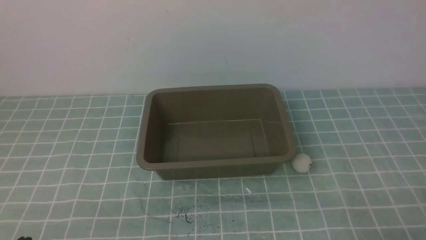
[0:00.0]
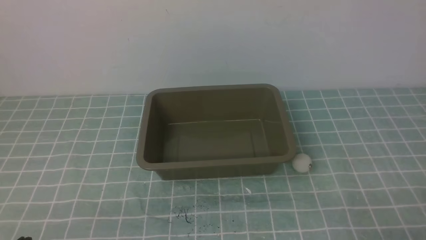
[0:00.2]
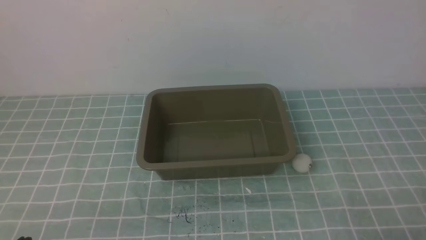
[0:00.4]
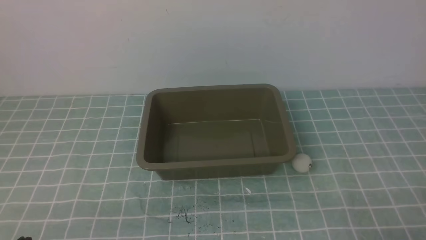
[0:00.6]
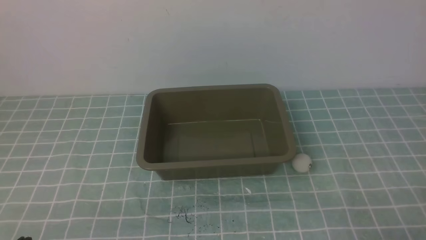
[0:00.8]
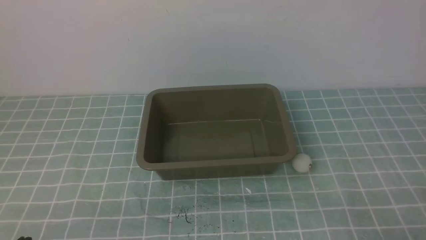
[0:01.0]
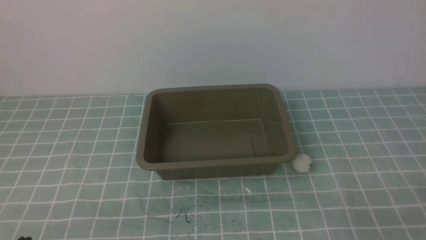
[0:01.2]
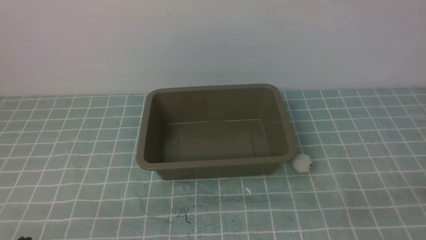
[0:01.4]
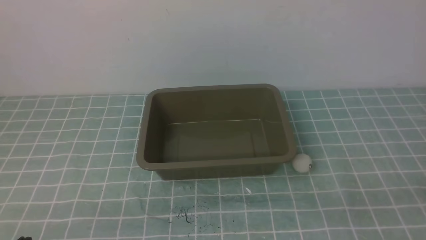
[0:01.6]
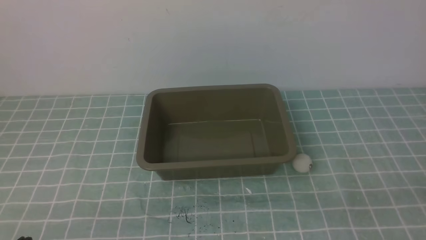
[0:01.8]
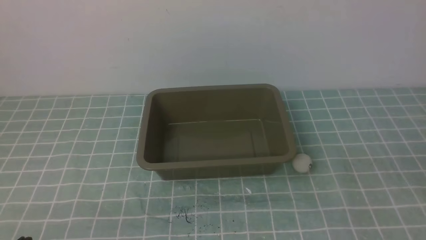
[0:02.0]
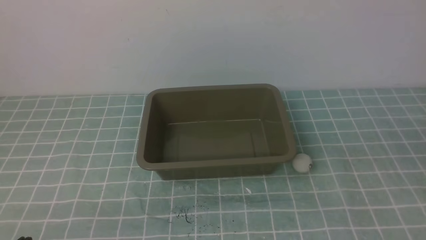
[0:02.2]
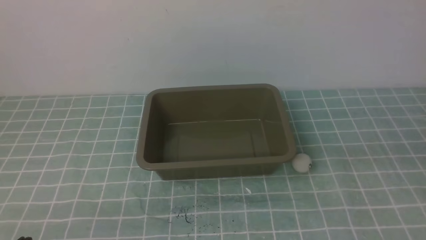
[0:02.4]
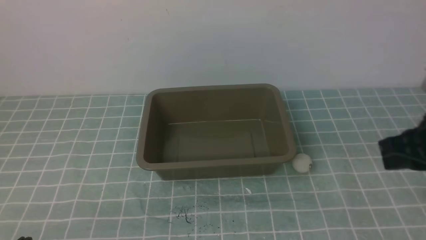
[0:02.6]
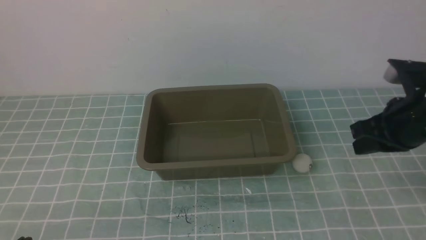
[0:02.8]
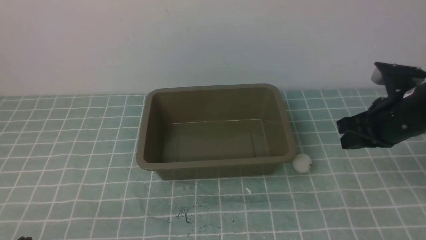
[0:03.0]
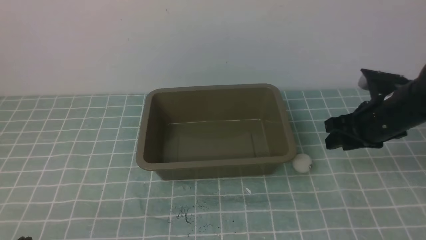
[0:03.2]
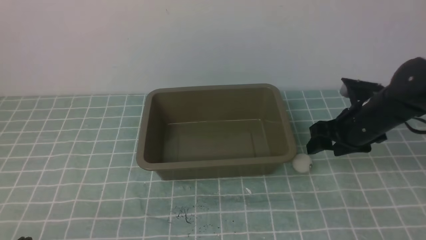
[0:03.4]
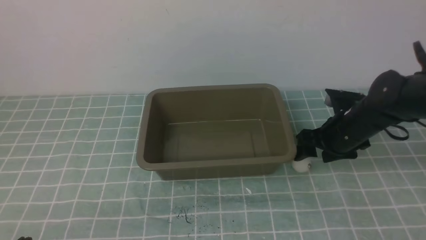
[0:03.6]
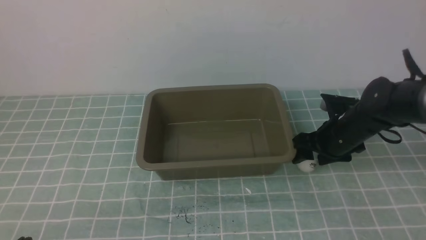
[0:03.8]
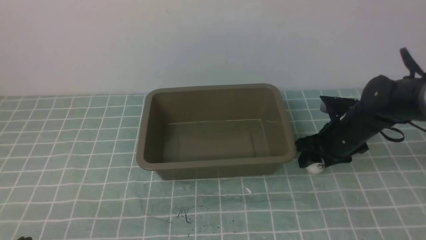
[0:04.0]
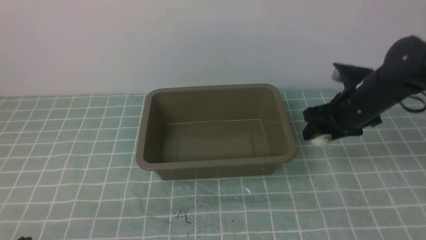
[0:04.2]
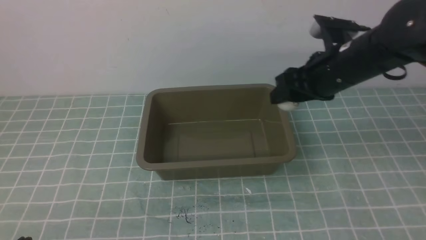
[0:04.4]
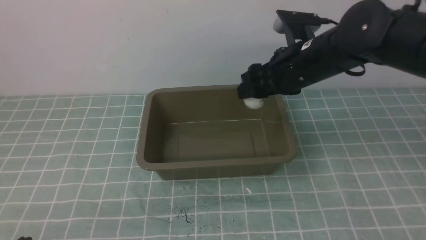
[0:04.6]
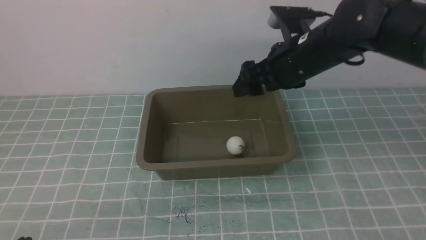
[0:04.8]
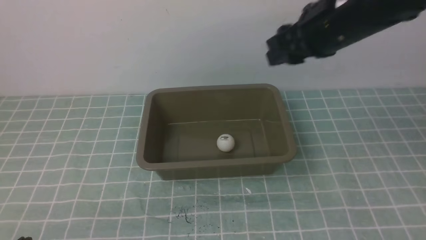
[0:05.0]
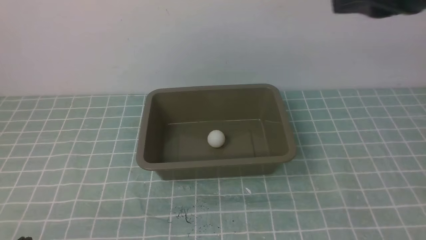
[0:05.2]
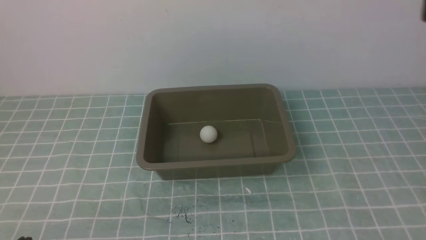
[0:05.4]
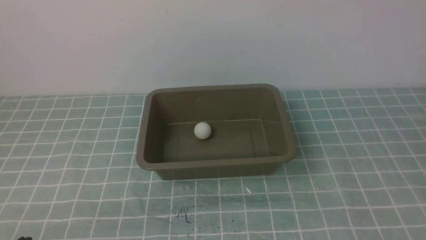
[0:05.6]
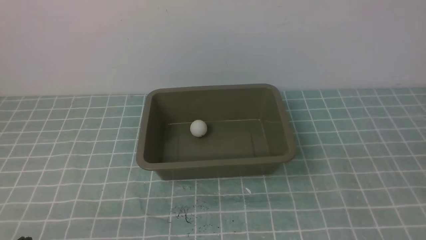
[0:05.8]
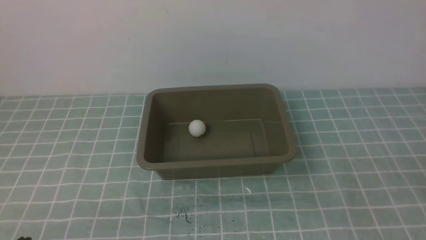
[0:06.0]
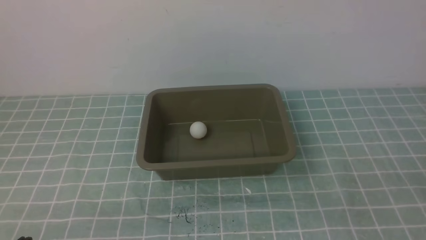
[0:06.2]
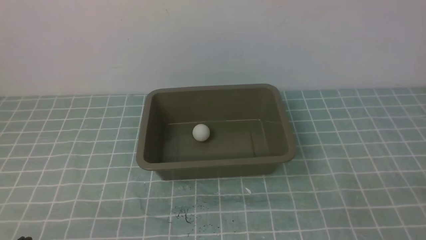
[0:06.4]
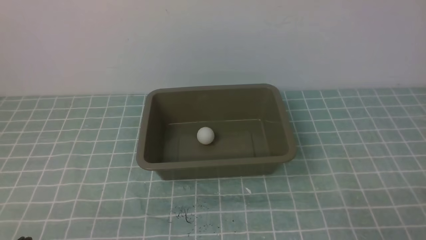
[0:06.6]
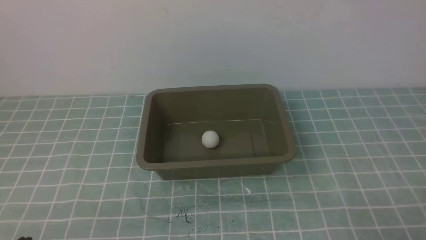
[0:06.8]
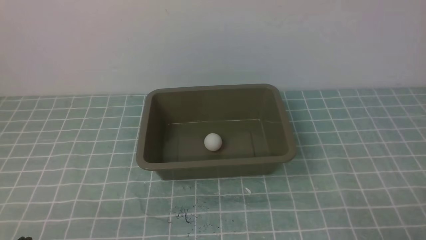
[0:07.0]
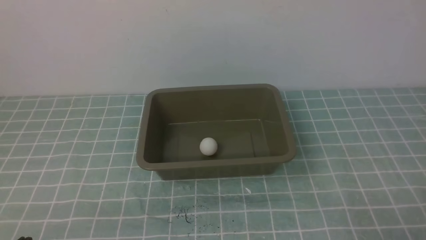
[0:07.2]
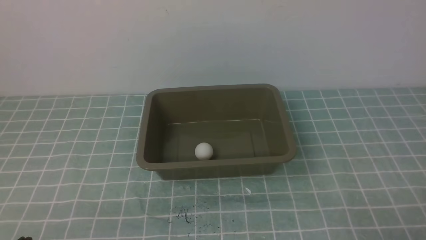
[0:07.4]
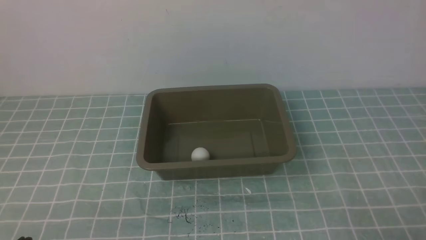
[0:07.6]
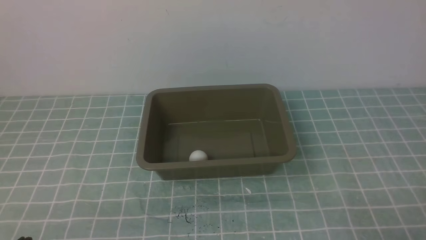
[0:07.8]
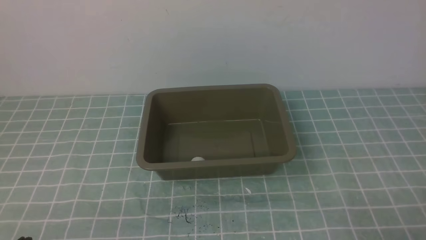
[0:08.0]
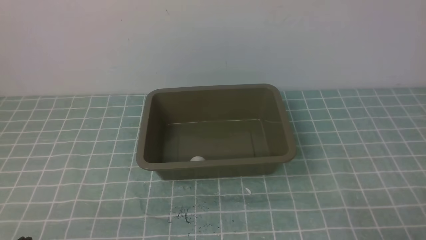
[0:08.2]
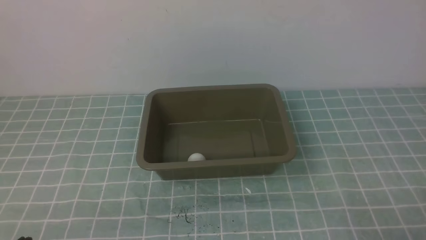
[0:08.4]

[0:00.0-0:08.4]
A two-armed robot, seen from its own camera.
Step, 0:00.0 to 0:04.0: use the right arm to clamp the table tennis ball closest to it.
Step, 0:04.4 to 0:04.6: use the right arm to put the table tennis ball into the box.
0:01.4 to 0:02.8: The right gripper shifts roughly 20 cm forward and upward.
0:02.8 to 0:04.2: The right gripper goes roughly 15 cm forward and downward, and opens its fingers.
0:04.2 to 0:05.6: The right gripper travels backward and upward by roughly 35 cm, and closes.
0:07.0 to 0:08.4: Both grippers stay about where they are.
